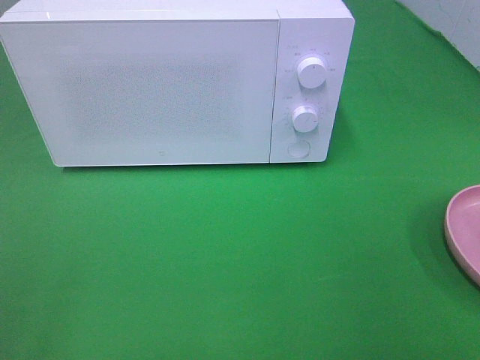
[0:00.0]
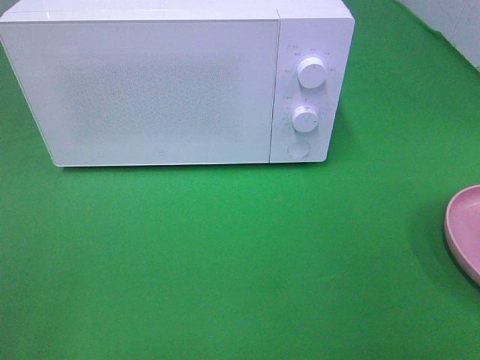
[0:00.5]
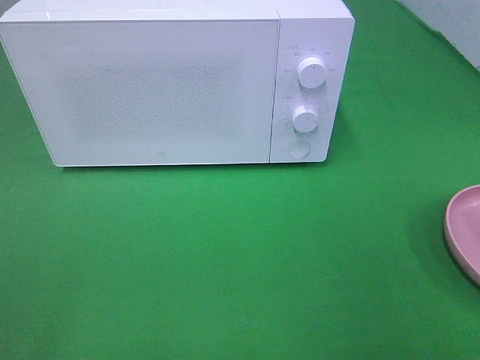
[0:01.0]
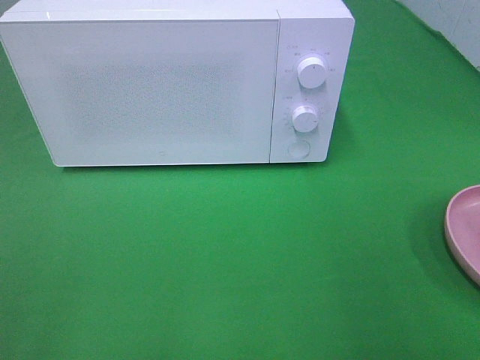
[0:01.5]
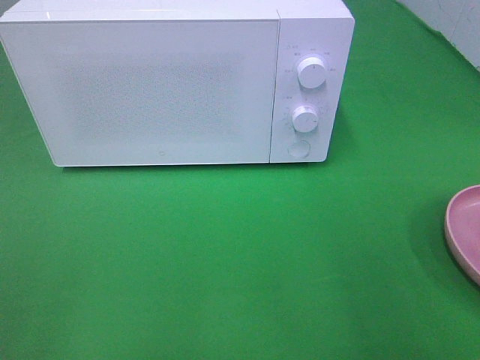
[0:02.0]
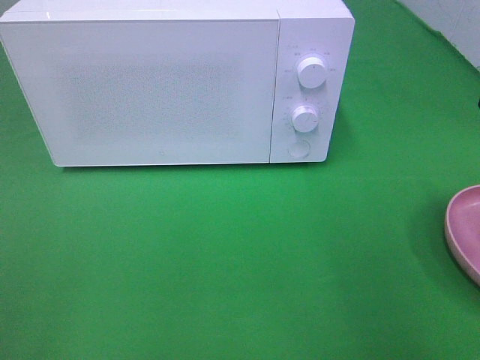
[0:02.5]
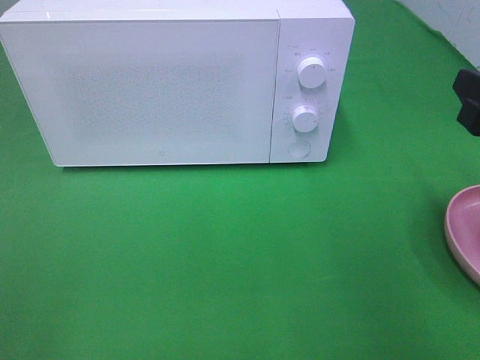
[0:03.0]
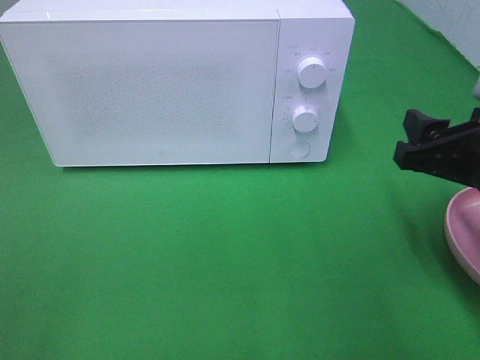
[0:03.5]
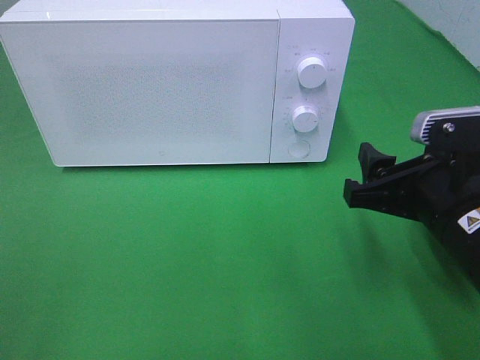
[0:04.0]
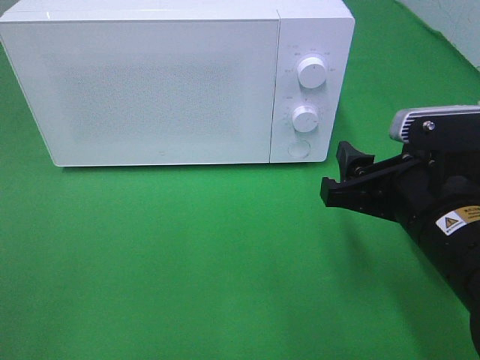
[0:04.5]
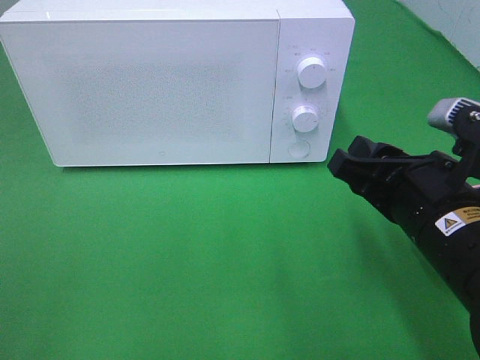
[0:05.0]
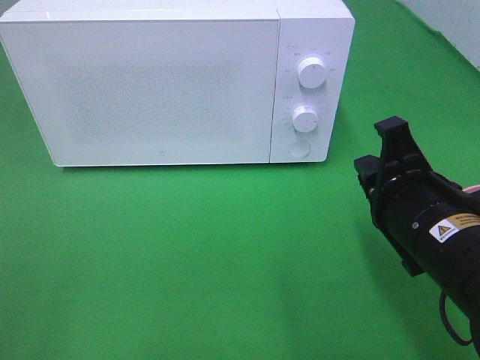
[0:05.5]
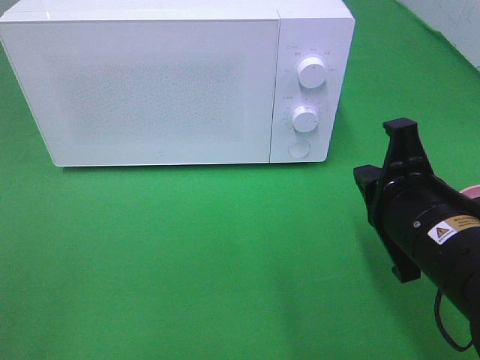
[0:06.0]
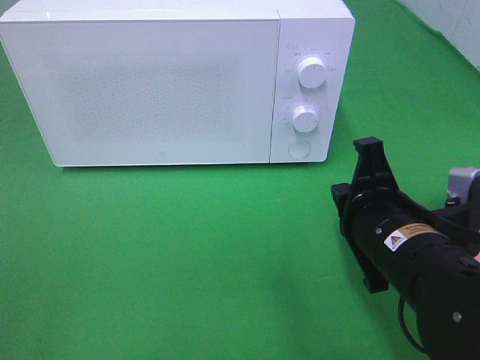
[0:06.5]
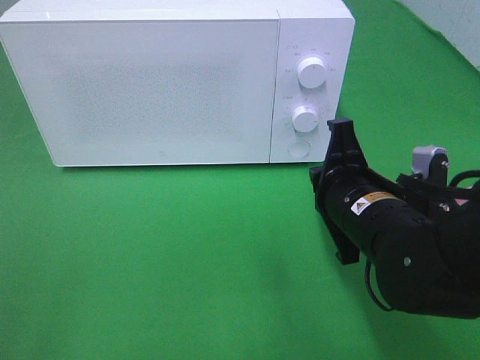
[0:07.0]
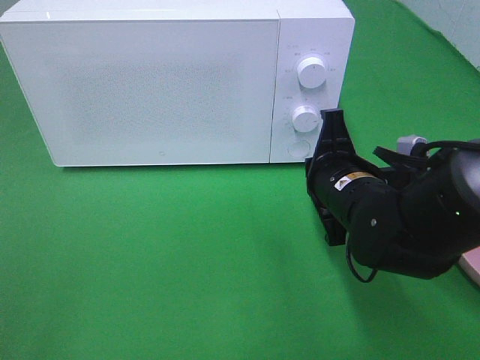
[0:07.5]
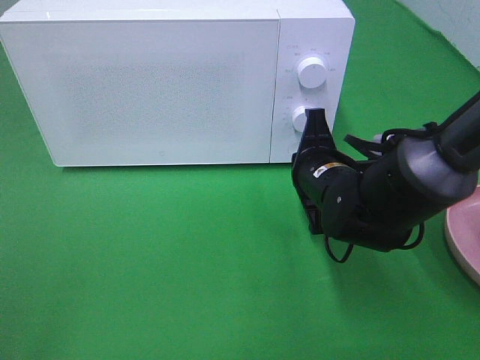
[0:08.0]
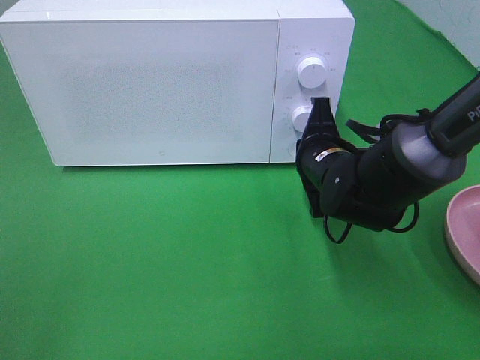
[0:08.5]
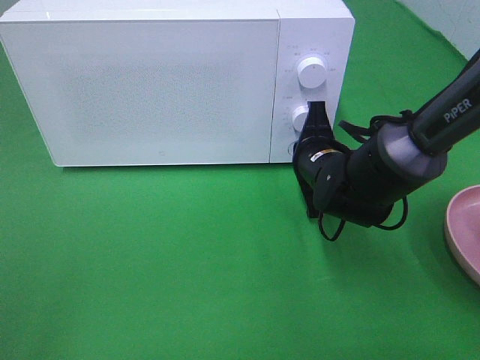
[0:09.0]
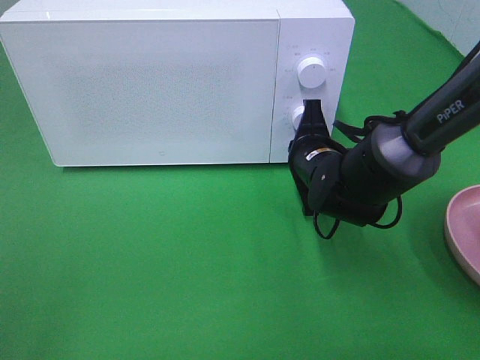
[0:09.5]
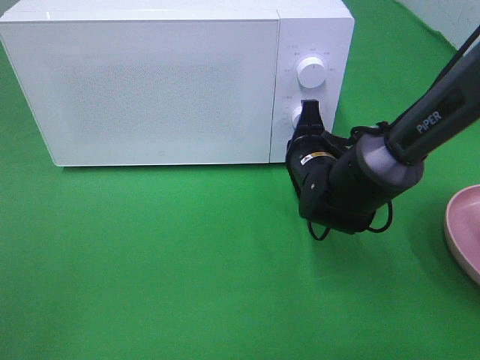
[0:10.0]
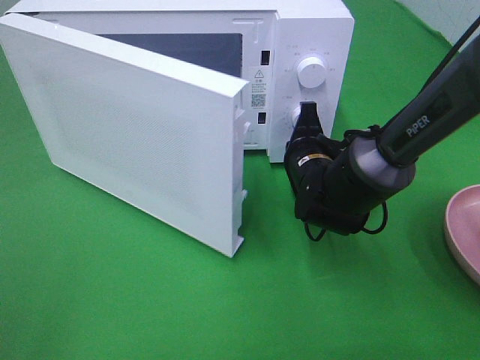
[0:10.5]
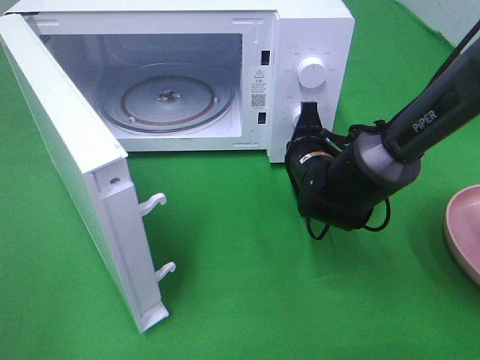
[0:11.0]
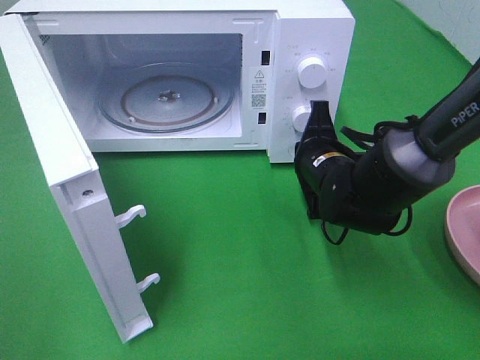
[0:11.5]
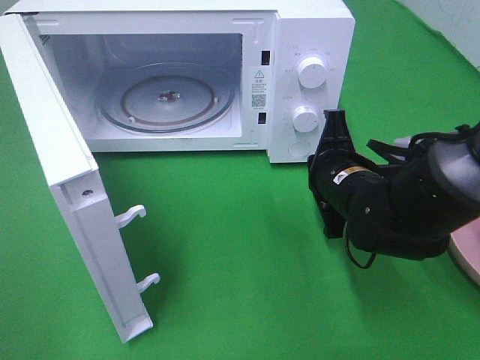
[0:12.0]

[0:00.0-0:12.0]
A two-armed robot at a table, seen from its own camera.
Task of the whole recording: Heat the burger.
Step, 0:00.0 to 0:11.5: Right hand: press the switch.
0:02.0 to 0:04.0: The right gripper shifts approximately 15 cm to the left, downward and forward.
0:04.0 to 0:06.0: The right gripper closes.
0:06.0 to 0:08.0: The right gripper travels forward and downward by approximately 15 cm.
0:08.0 to 0:10.0: The right gripper shifts by roughly 5 cm.
0:10.0 to 0:12.0: The right gripper travels backward by some 5 cm.

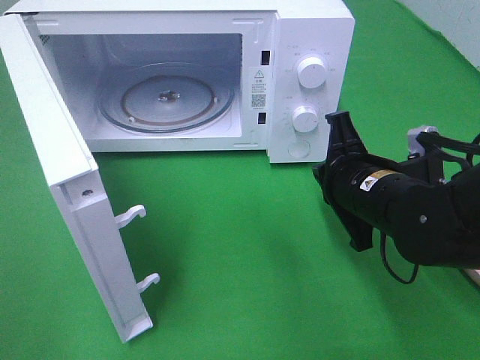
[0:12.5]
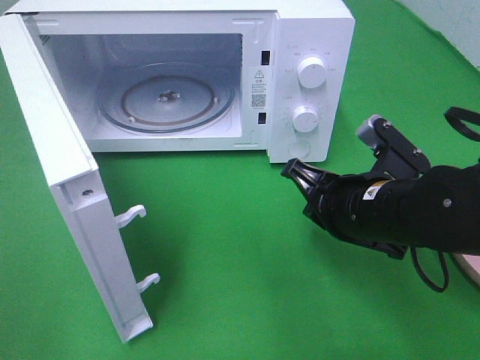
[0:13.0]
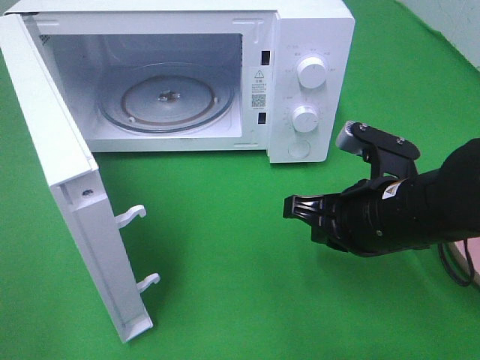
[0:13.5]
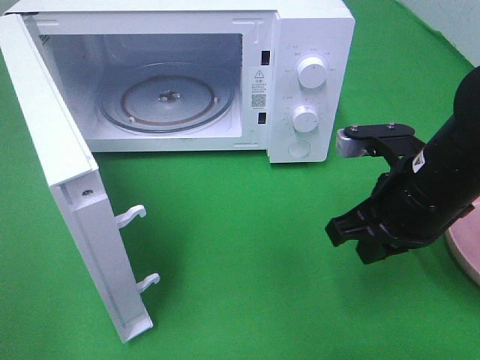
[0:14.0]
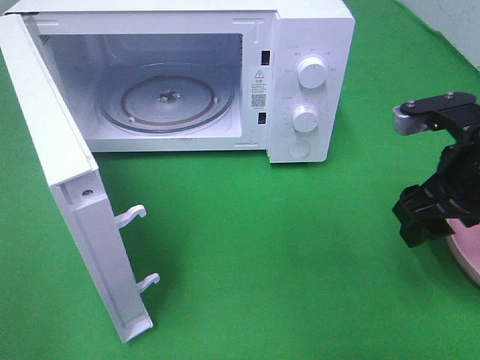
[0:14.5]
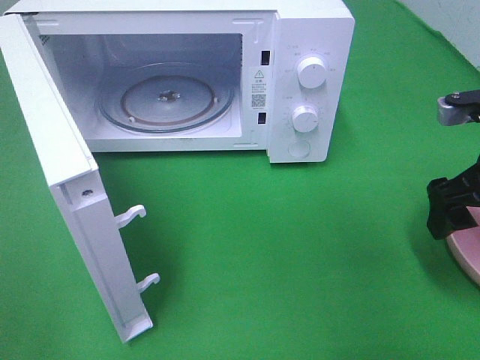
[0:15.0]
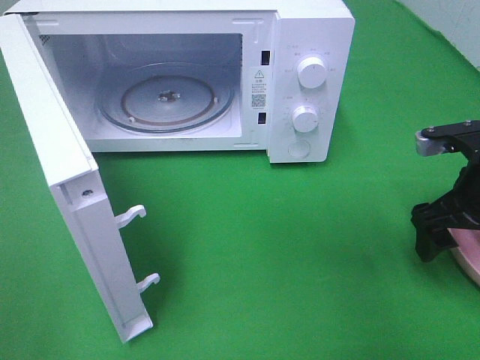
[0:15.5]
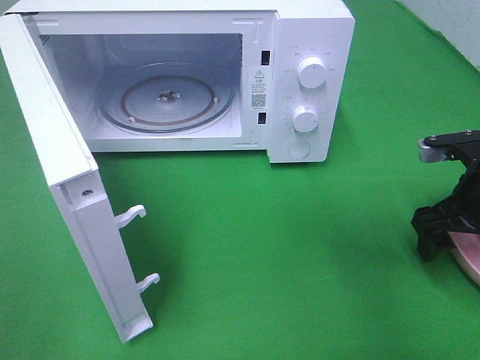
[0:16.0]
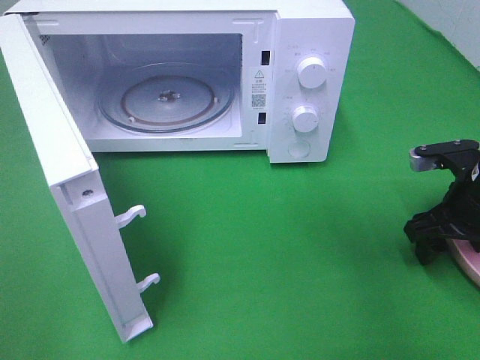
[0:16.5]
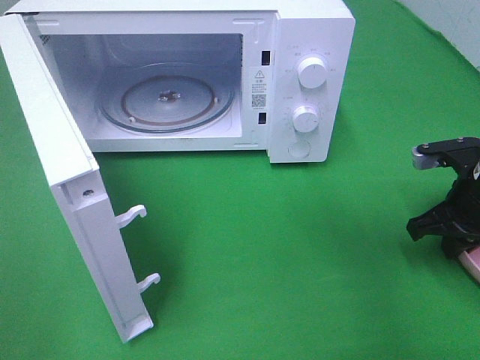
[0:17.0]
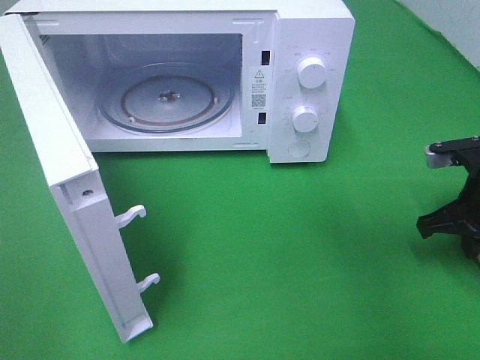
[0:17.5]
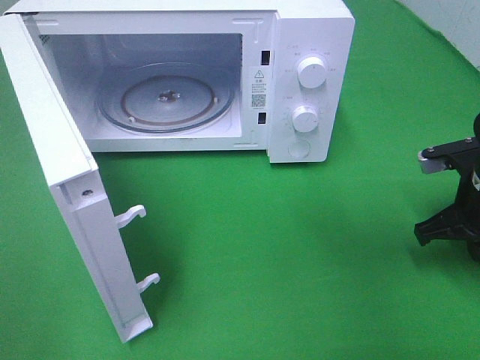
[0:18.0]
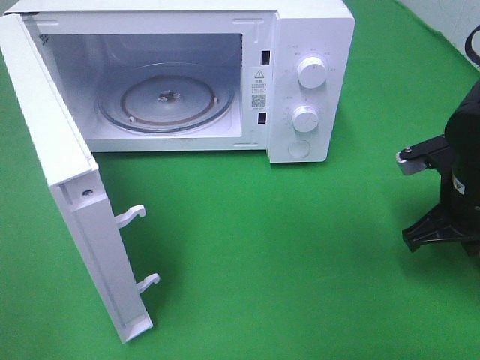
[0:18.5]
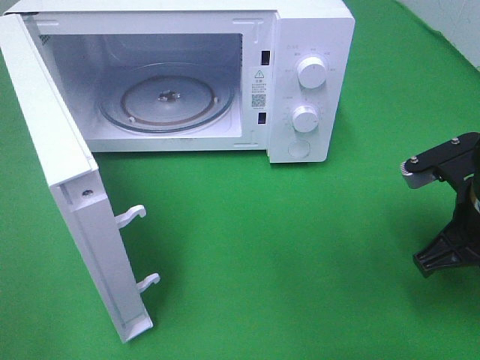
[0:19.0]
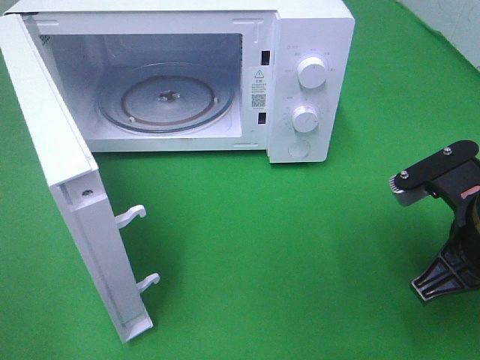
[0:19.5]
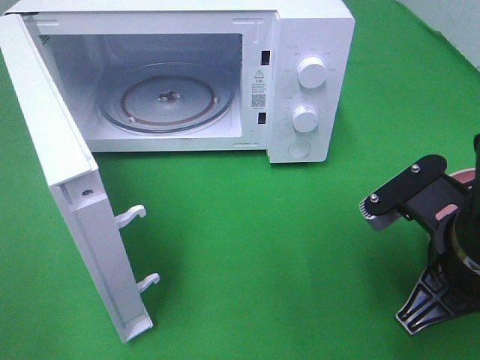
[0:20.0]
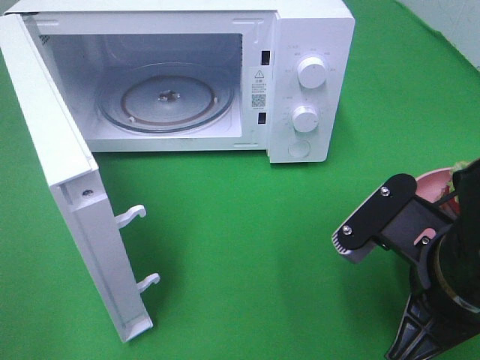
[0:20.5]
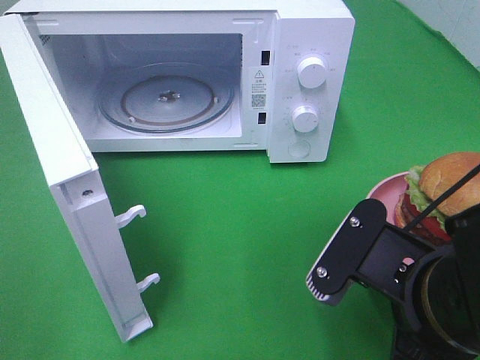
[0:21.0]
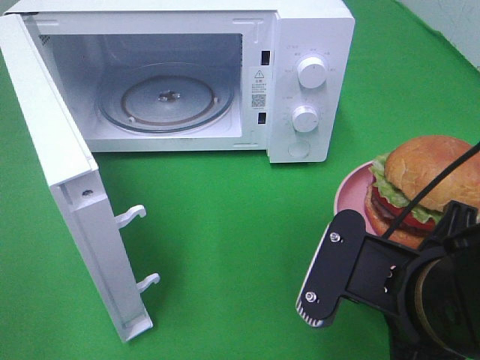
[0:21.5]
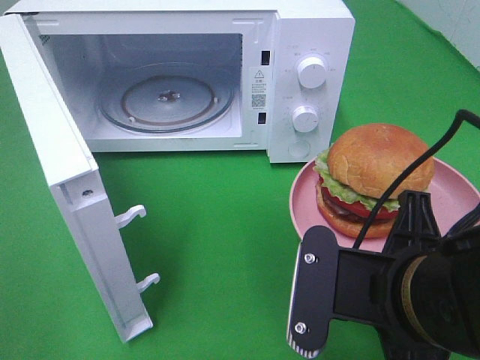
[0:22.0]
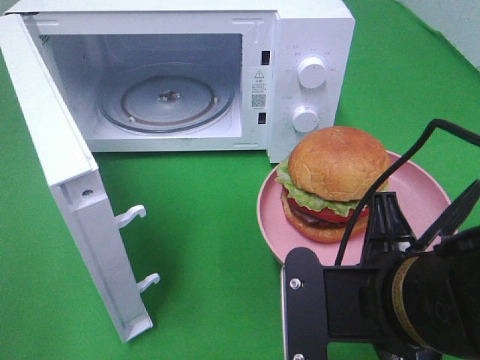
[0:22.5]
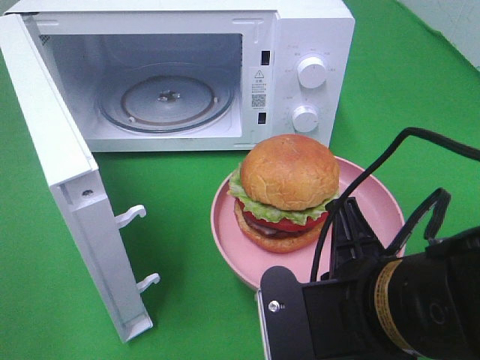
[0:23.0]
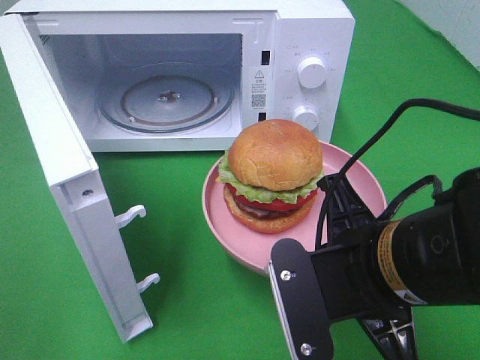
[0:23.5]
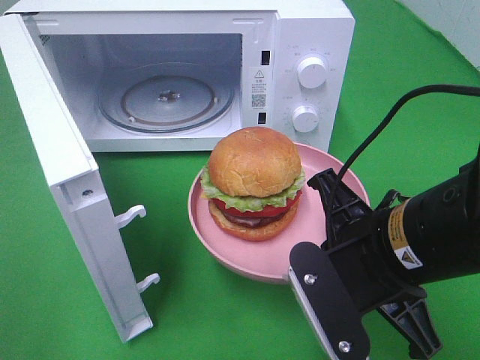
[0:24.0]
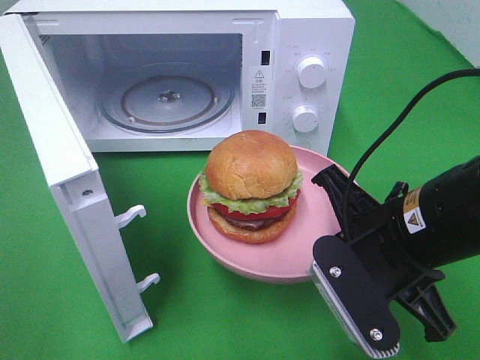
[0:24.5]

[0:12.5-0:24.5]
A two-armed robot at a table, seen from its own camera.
Task of the whole recording: Heat the burger.
Step, 0:12.5 to 0:18.0: Right hand: grab the plate with the hamburger.
0:12.5 to 0:14.5: The right gripper moves to the right and upward, roughly 10 cm, and opens its fingers.
0:14.5 to 0:16.5: The right gripper travels downward and to the right by approximately 10 cm.
0:16.5 to 0:18.5: The right gripper closes its fingers.
0:18.5 to 0:20.5: The right gripper is displaced backward and to the left by about 15 cm.
0:22.5 to 0:24.5: The right gripper travels forward by some 5 cm.

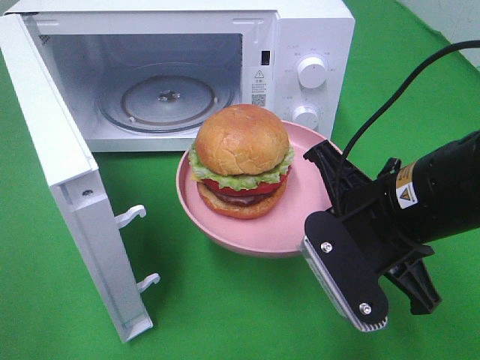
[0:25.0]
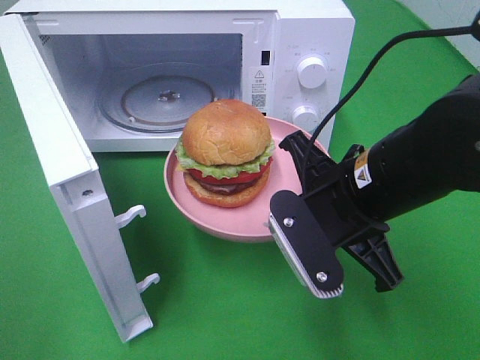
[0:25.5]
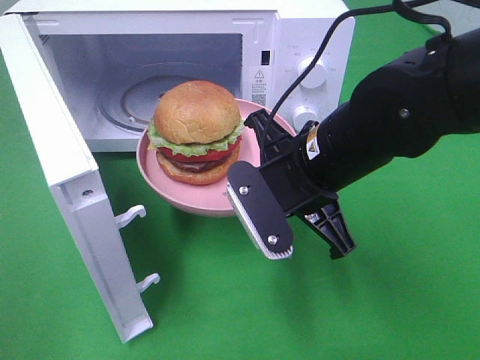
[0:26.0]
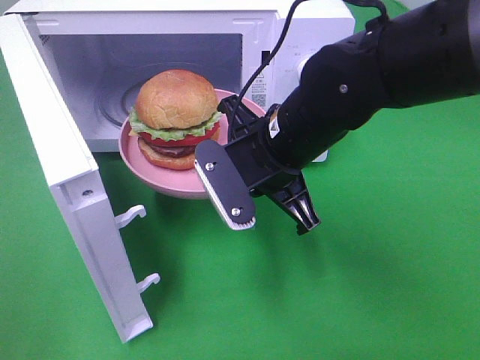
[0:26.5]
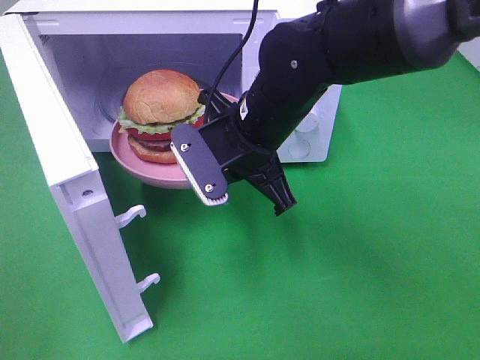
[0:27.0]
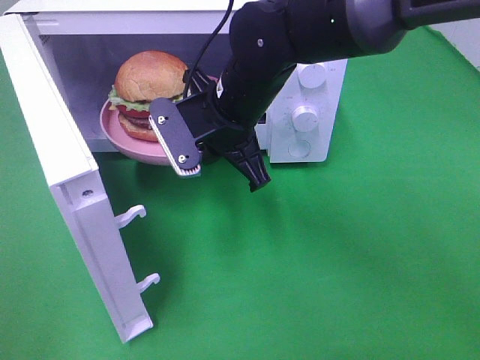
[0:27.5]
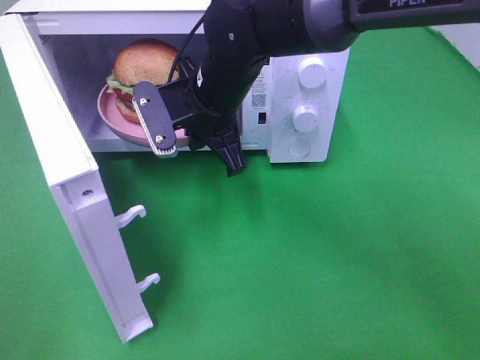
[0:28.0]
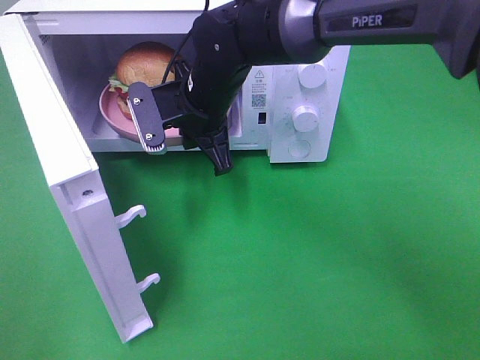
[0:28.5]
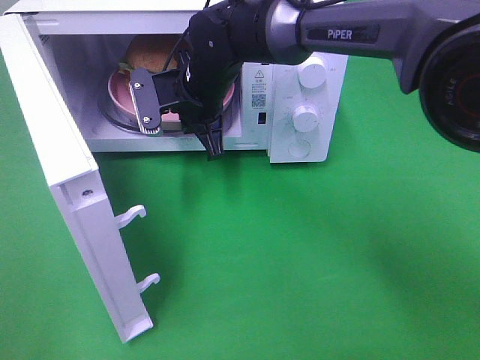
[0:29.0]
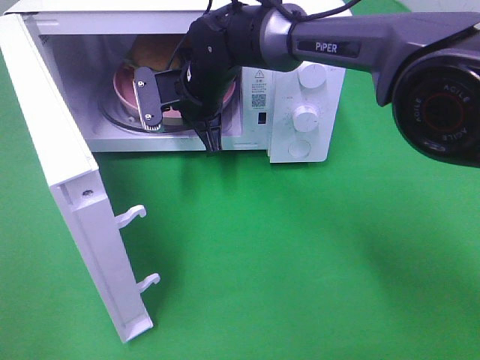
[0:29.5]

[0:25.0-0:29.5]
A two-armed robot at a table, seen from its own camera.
Task of the whole recording: Heat the burger.
0:25.0 to 0:27.0: The right gripper is displaced forward and to the left by roughly 15 cm.
0:27.0 to 0:29.5: The right gripper shifts some 15 cm forward and to the left.
